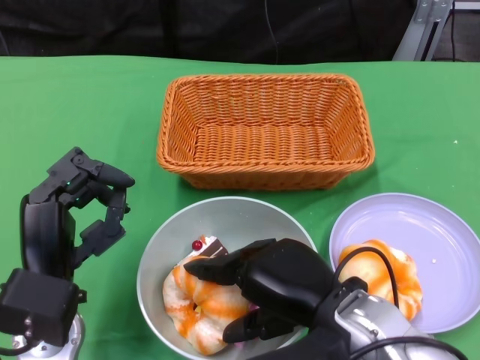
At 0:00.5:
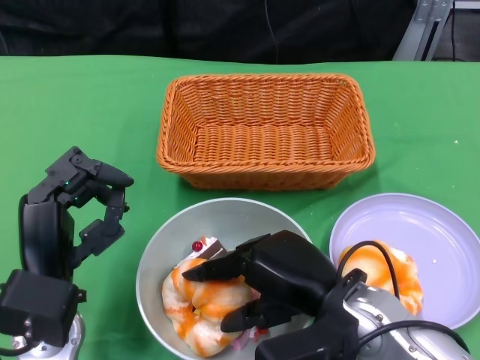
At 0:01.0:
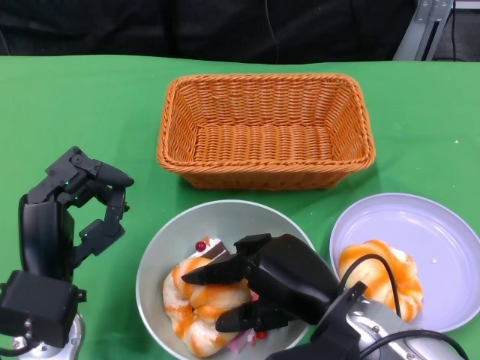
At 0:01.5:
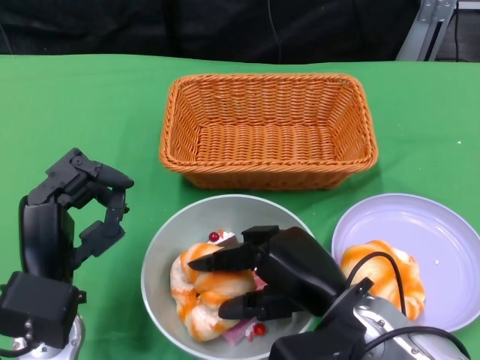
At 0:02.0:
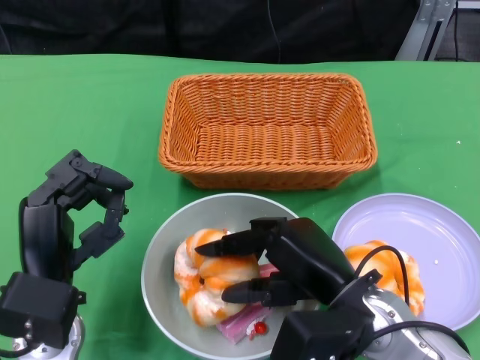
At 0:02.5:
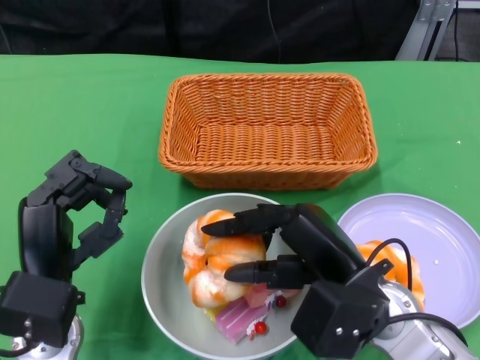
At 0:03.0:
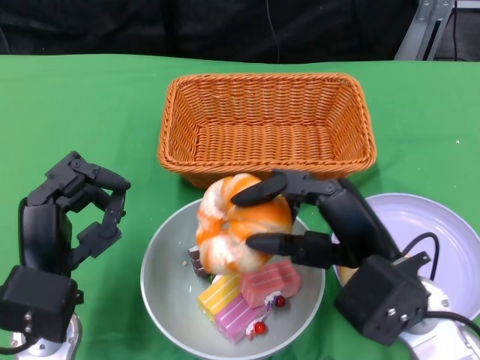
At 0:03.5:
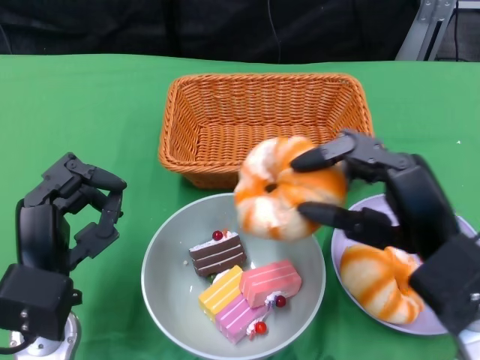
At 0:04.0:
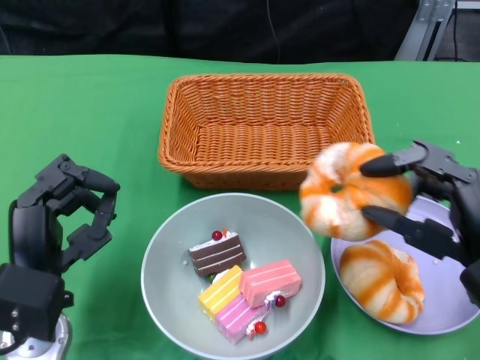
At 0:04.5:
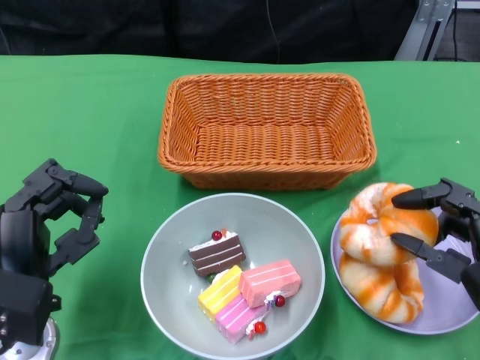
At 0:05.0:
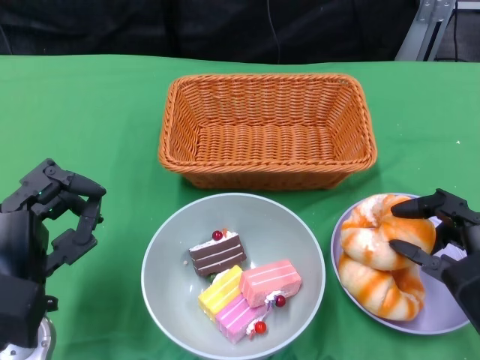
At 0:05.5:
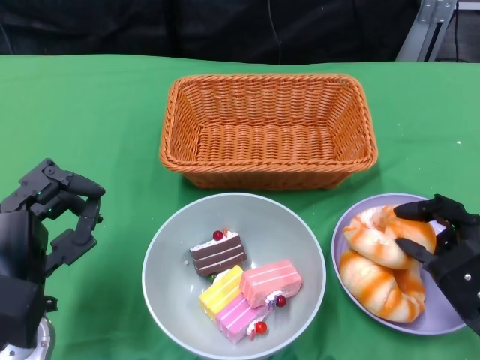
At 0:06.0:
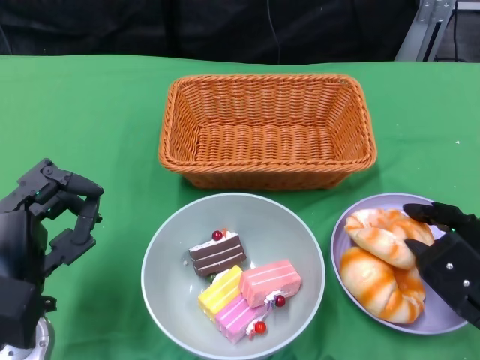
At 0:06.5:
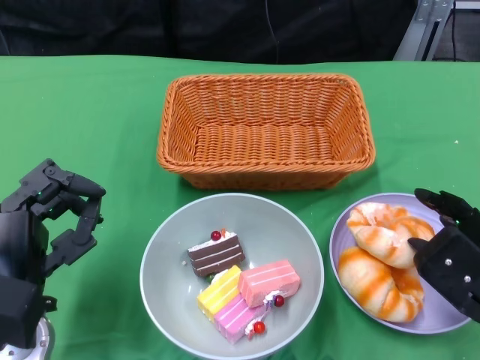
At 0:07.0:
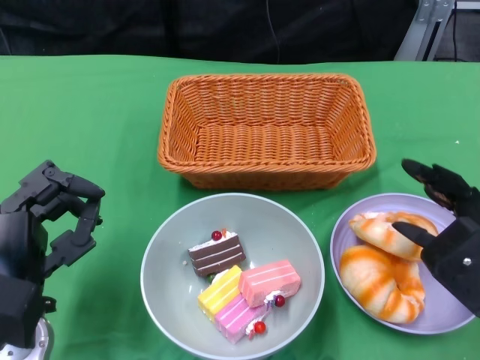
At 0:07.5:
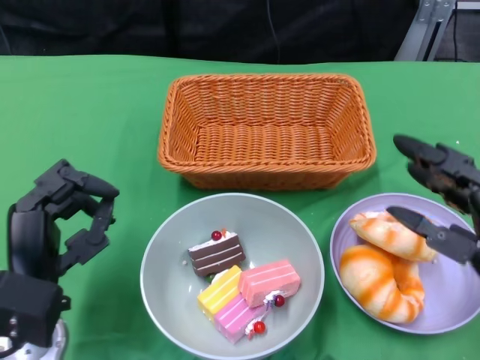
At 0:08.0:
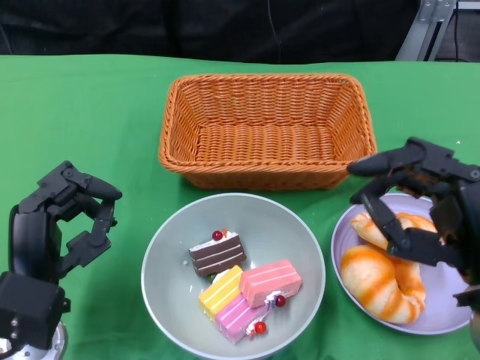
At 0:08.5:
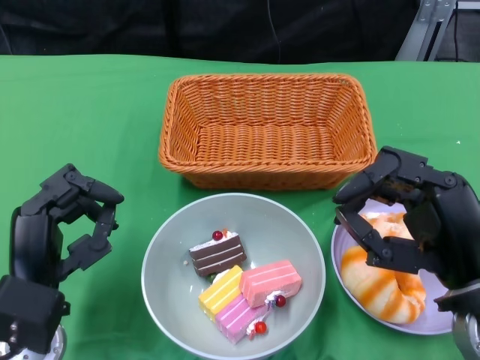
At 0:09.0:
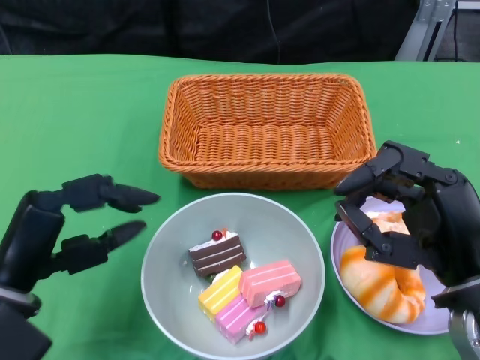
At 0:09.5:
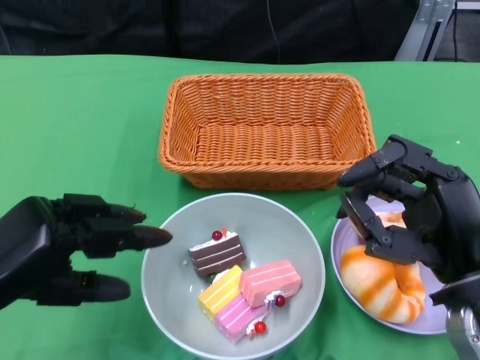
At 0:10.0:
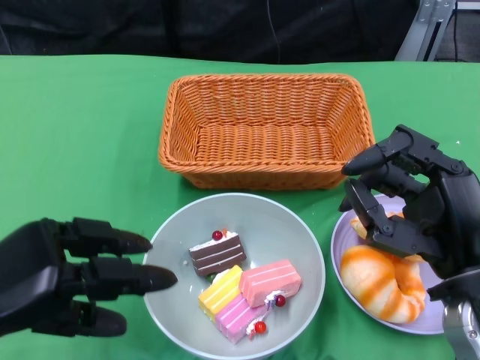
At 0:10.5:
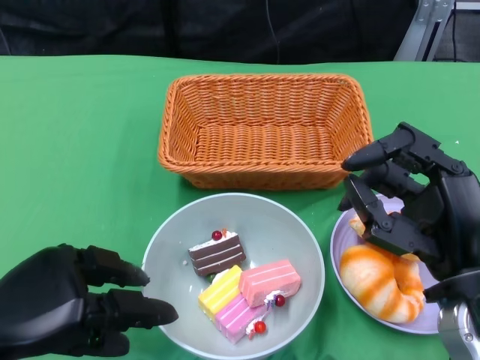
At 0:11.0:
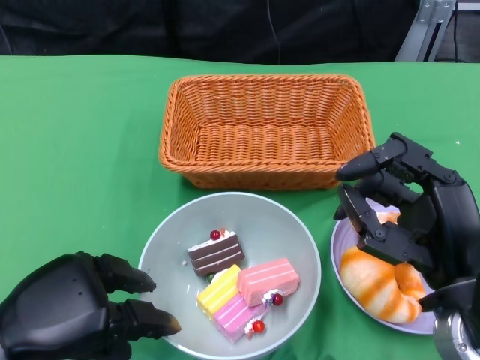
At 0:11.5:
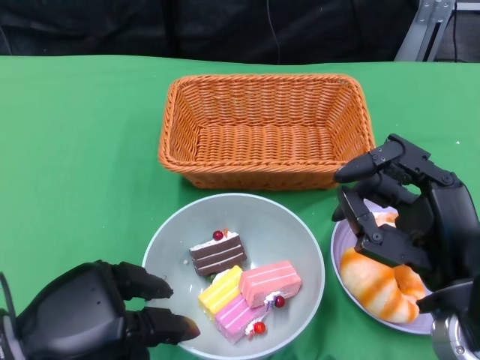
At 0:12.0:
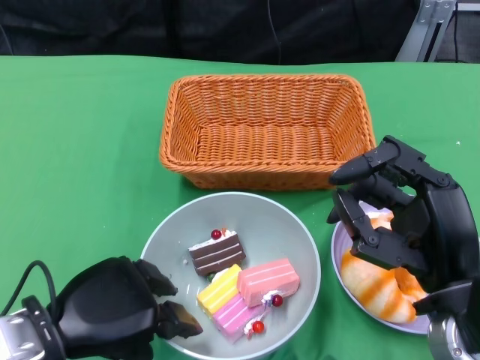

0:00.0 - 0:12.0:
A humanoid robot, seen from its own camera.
Step, 0:00.0 - 0:07.0: Pick up the bread with the right gripper and place it on the plate.
0:02.0 - 0:04.0: The right hand heads to the right, covering about 10 cm.
0:04.0 - 0:06.0: The right hand is displaced downward by roughly 5 cm.
0:06.0 - 0:08.0: The right hand shifts about 5 cm upward.
0:08.0 - 0:10.0: The left hand shifts approximately 10 cm upward and to the left.
0:10.0 - 0:12.0: The left hand goes approximately 5 cm to the right.

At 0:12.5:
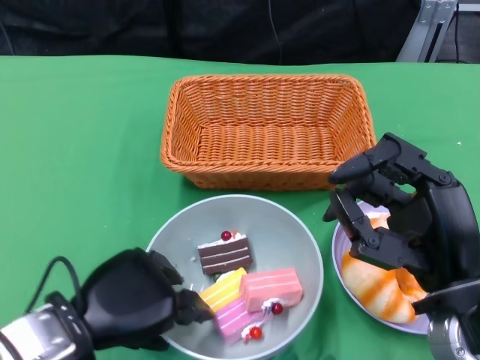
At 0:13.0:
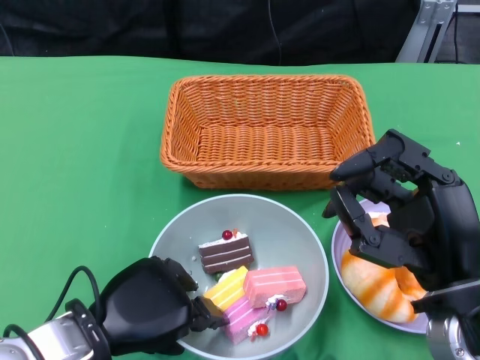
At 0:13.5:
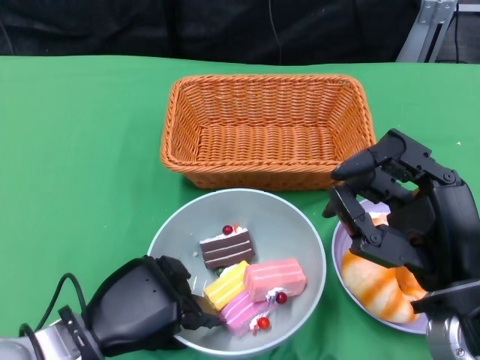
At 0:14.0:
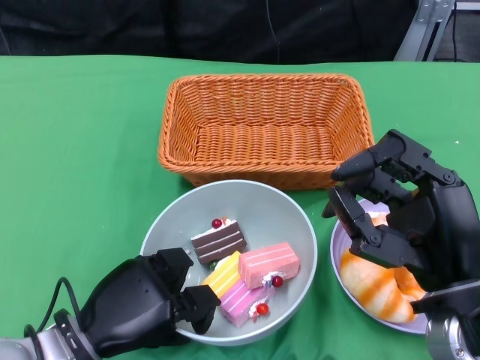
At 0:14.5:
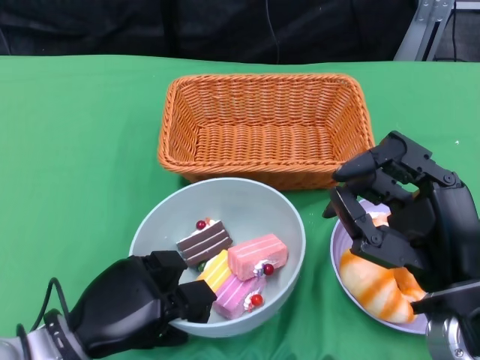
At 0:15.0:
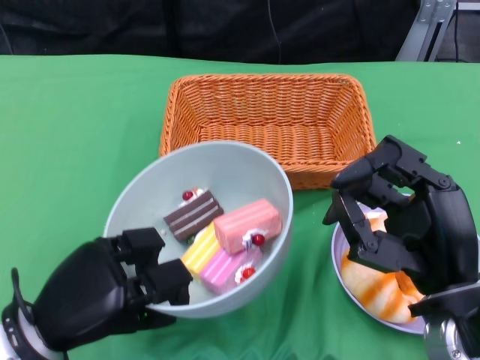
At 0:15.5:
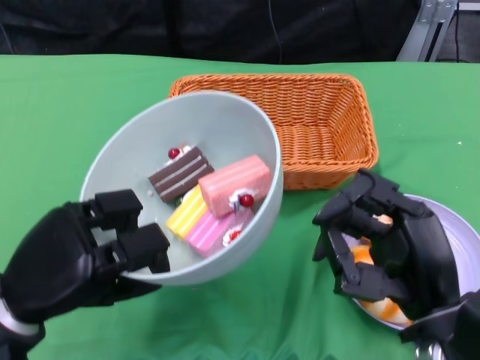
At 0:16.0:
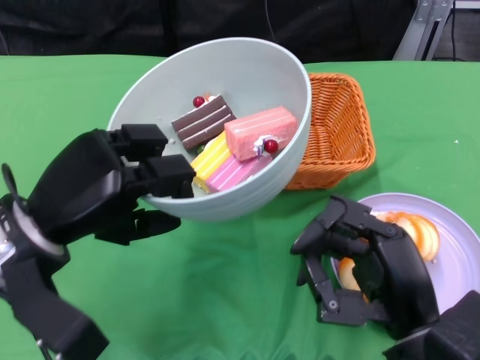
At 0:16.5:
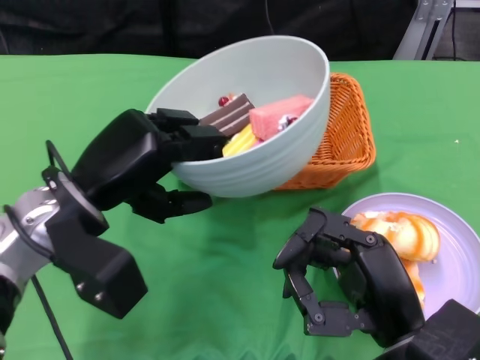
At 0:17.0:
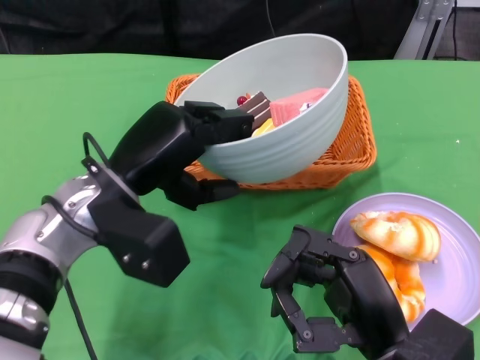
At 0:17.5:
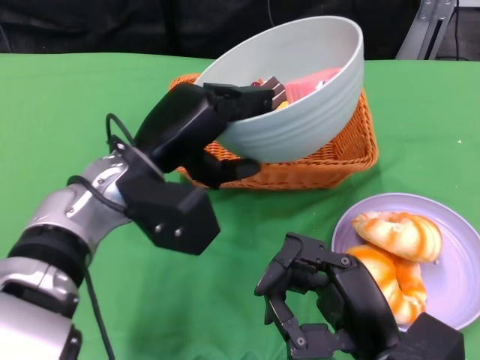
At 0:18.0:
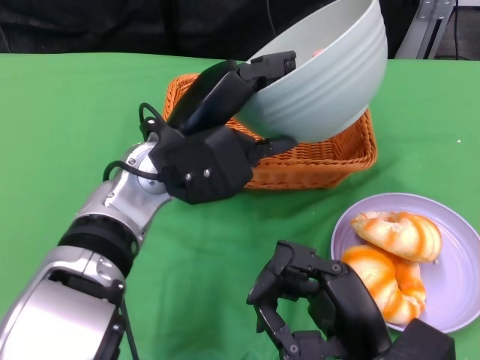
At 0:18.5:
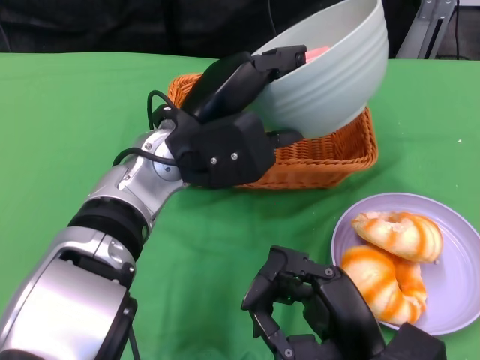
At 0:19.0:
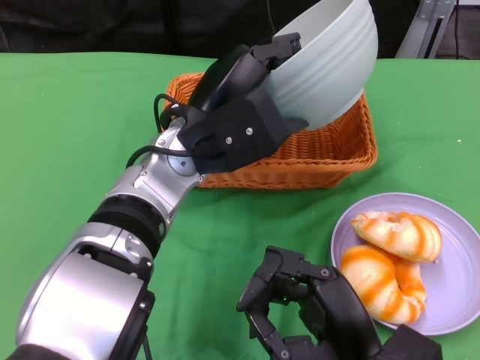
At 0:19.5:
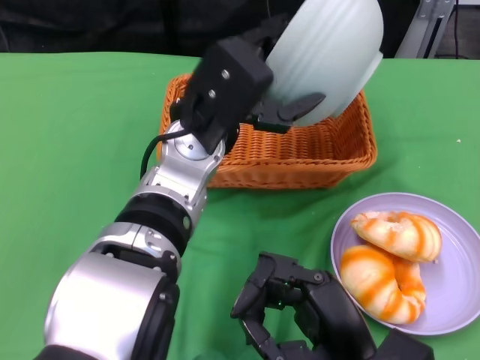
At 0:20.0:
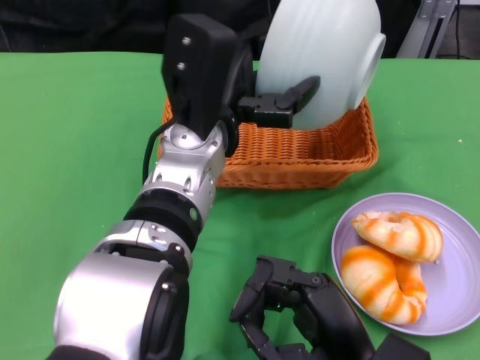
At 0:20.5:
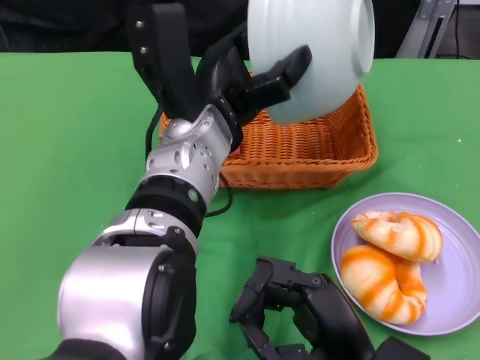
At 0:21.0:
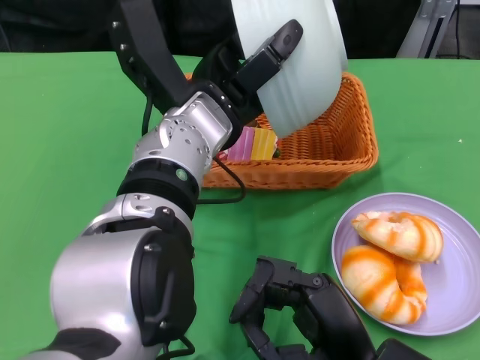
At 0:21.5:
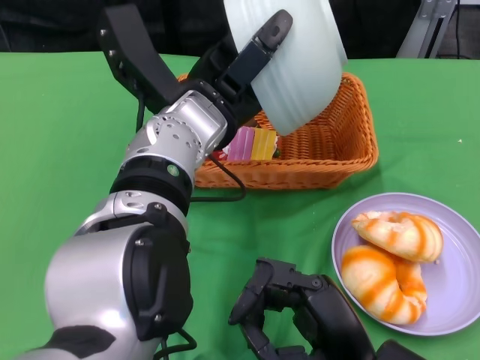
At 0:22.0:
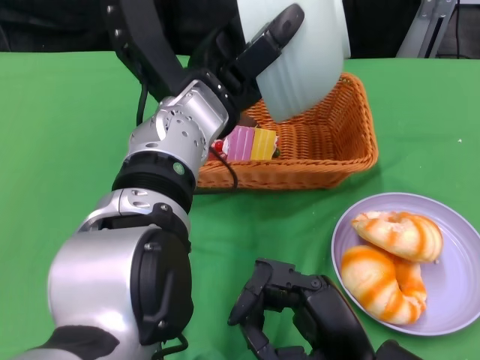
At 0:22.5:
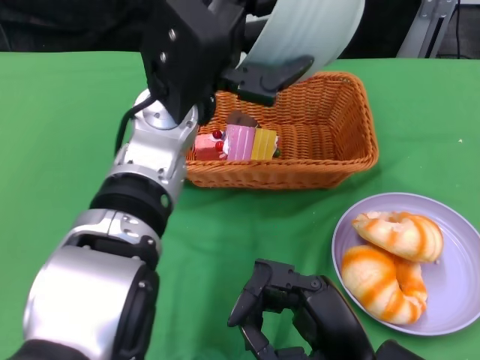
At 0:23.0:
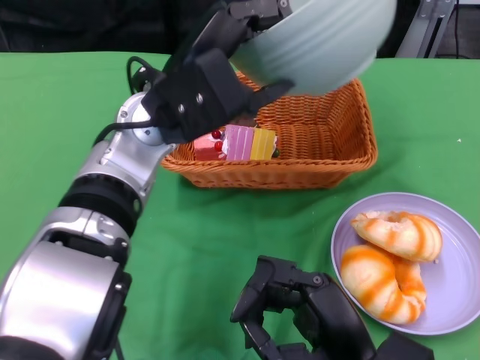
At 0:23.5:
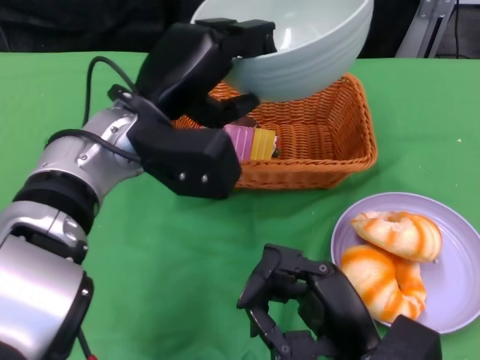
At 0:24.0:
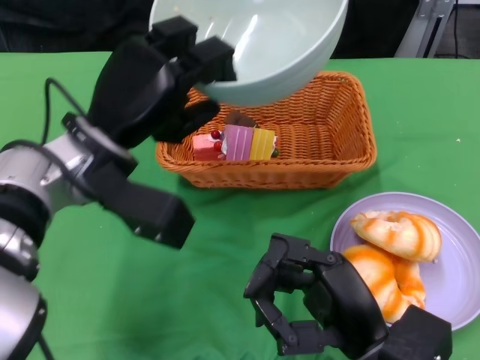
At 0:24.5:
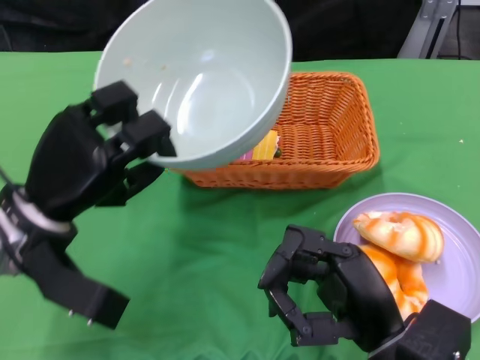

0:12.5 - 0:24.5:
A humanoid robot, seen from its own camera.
Step, 0:13.5 - 0:22.0: Pour the cake into the basket with the left gripper.
0:12.5 - 0:14.5: The left hand changes place by roughly 5 cm.
0:14.5 - 0:16.5: The left hand goes about 15 cm upward and forward.
0:16.5 - 0:18.5: The left hand goes approximately 10 cm to the right.
0:22.5 - 0:24.5: The left hand is displaced to the left and downward by some 15 cm.

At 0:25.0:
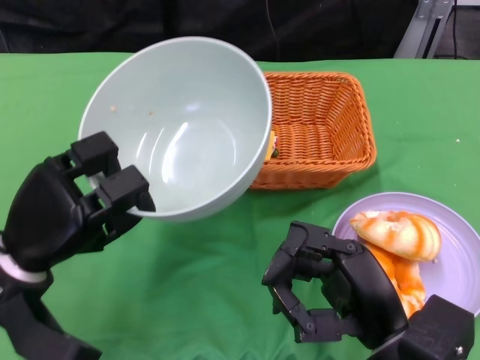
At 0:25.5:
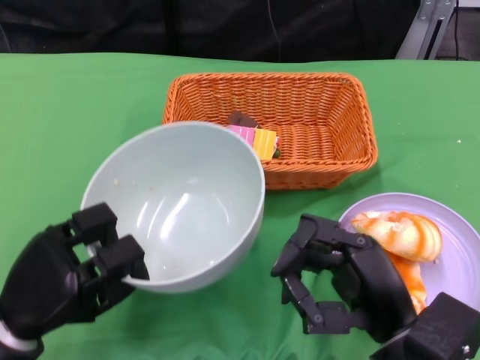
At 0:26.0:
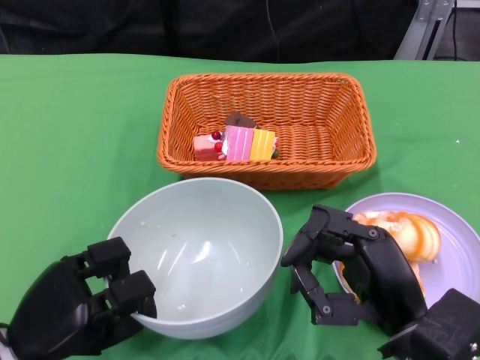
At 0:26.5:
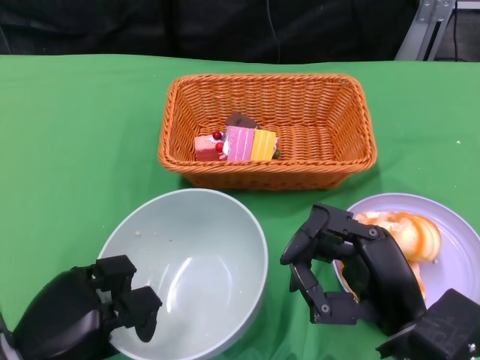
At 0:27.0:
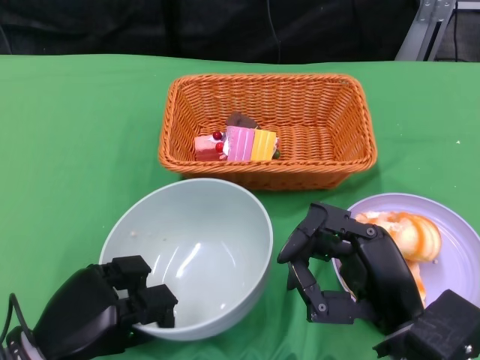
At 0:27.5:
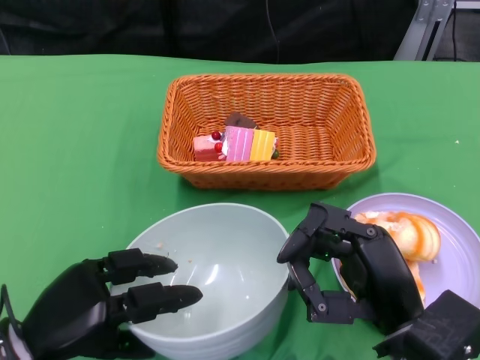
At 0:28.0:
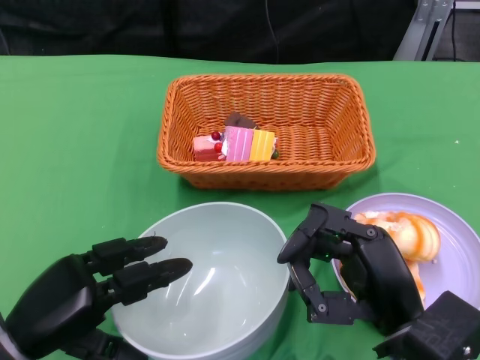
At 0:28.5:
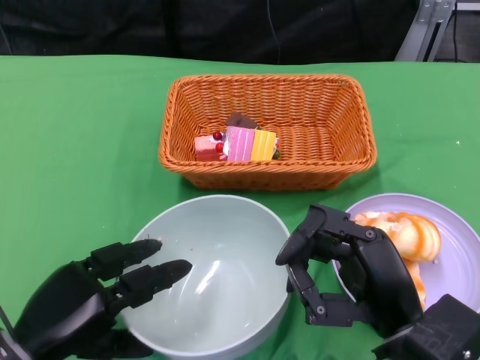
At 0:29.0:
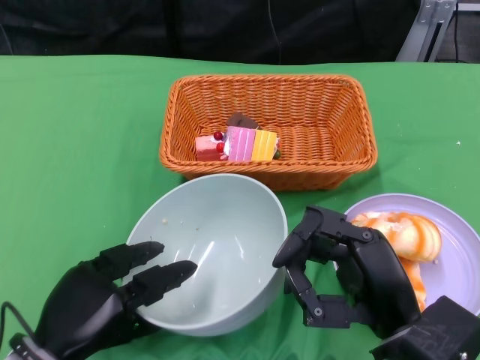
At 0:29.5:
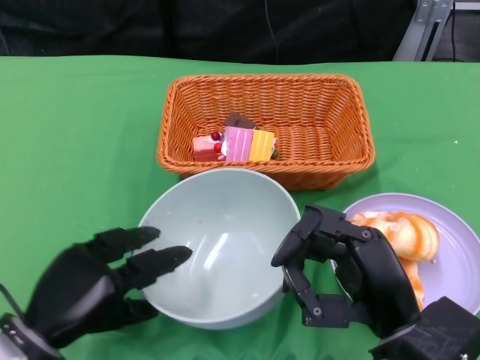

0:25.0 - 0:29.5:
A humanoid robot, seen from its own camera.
0:25.0 - 0:27.0: The left hand moves downward and backward, some 10 cm.
0:27.0 - 0:29.5: There are only small adjustments of the hands.
